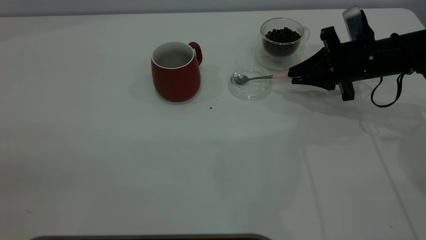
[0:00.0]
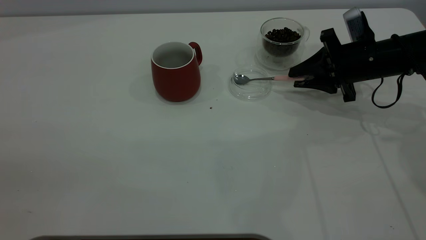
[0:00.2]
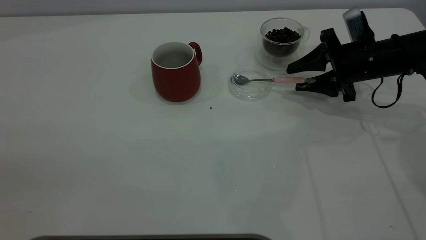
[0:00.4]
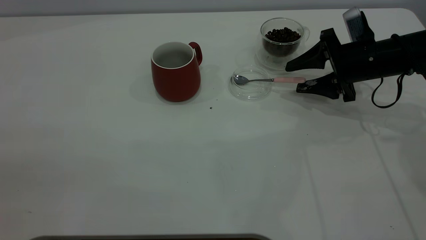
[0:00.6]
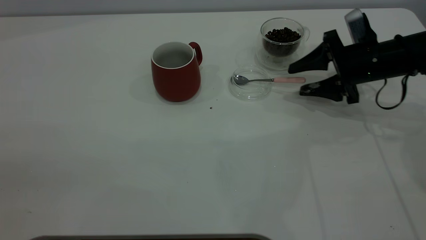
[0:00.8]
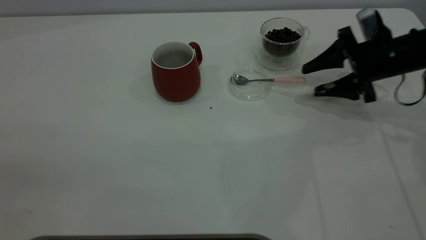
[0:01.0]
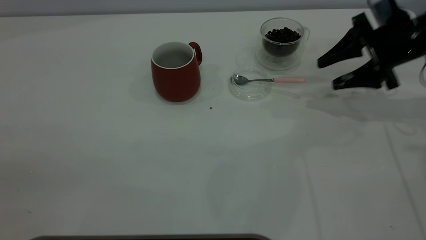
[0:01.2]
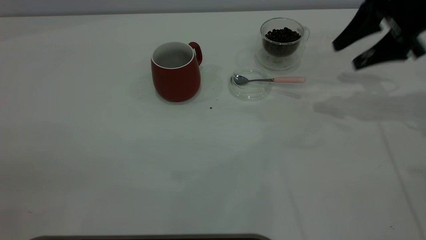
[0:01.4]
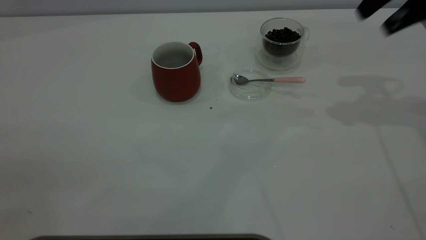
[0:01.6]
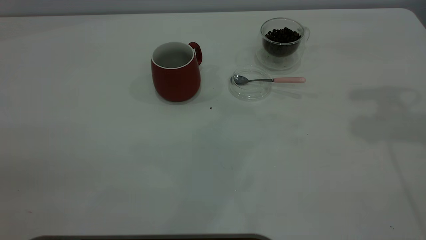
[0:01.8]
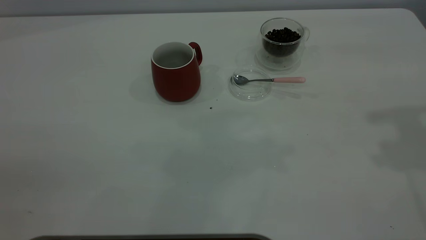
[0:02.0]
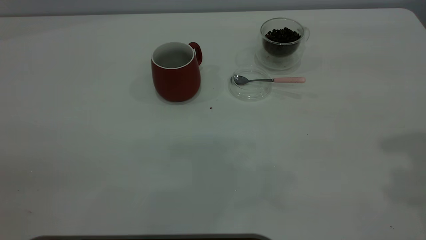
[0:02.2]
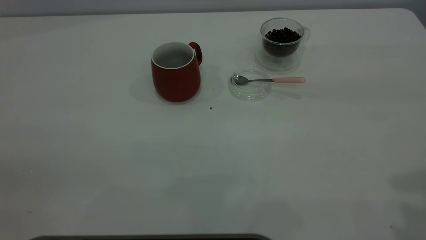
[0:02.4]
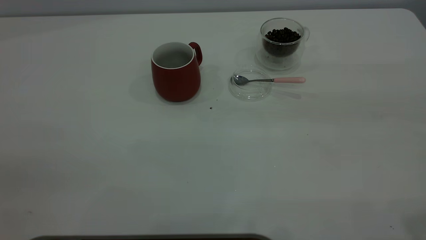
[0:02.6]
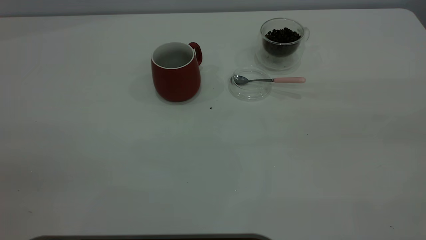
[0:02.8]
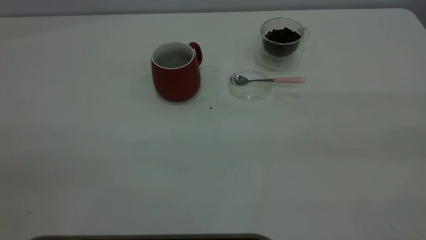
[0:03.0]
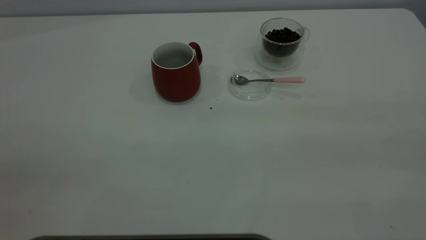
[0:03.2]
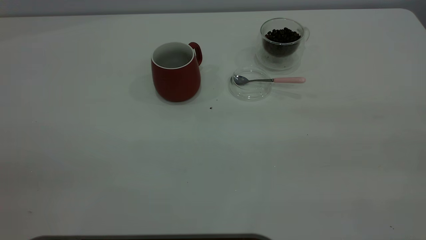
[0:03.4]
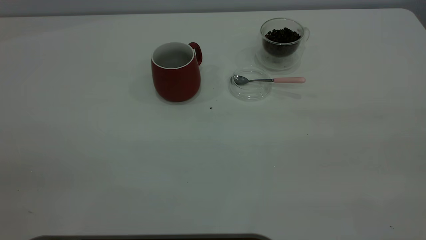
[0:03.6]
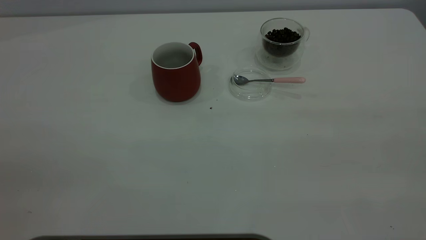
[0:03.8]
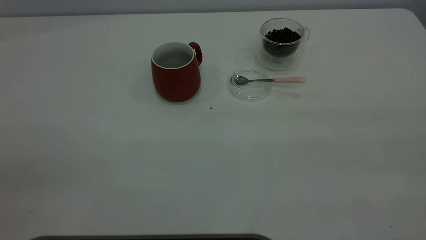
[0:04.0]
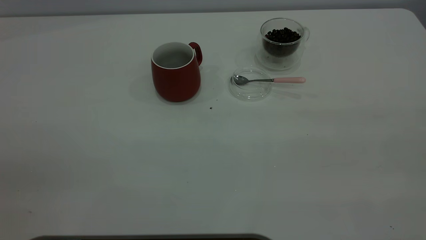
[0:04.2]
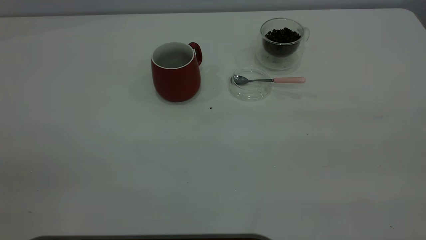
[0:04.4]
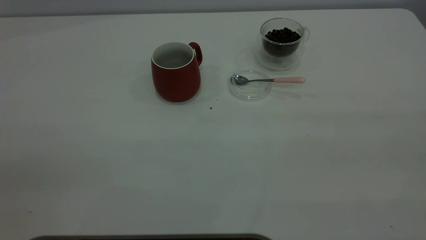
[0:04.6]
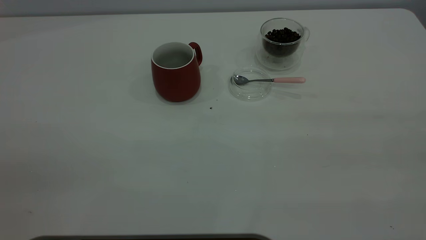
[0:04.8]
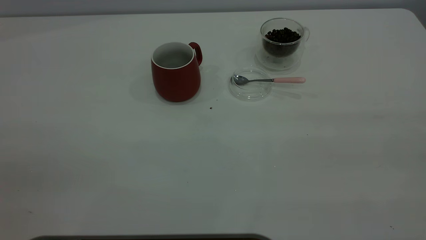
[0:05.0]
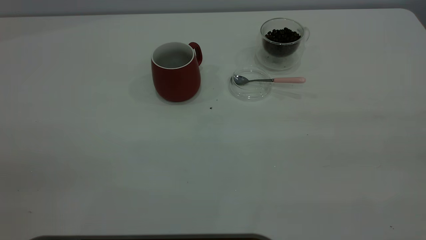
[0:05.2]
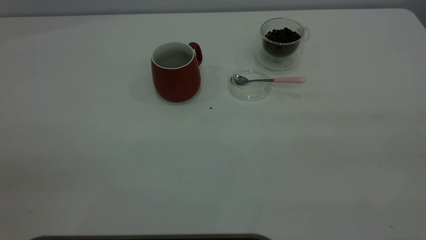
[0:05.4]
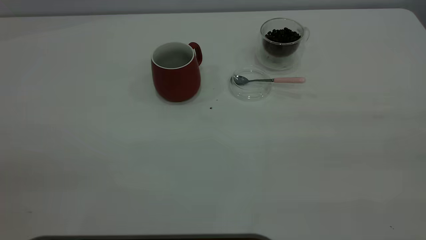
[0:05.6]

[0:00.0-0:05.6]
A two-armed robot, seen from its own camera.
Task of the whole recording: the left gripper place the red cup in the center of the table, the right gripper take the pink spoon from the cup lid and scoop out the coffee beans from the coffee cup and put them into the red cup, the right gripper put the spoon back into the cup lid.
0:00.0 to 0:01.4: The right gripper is displaced upward by roughly 15 cm, and opens.
0:01.4 to 0:02.8: The right gripper is displaced backward and upward by about 35 cm.
